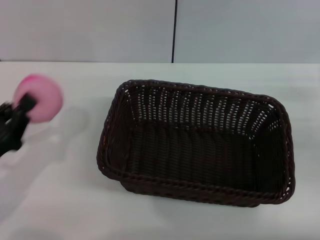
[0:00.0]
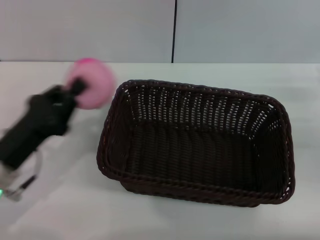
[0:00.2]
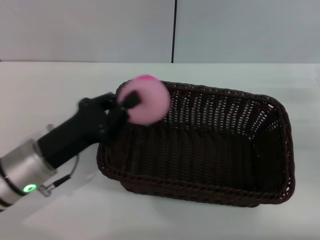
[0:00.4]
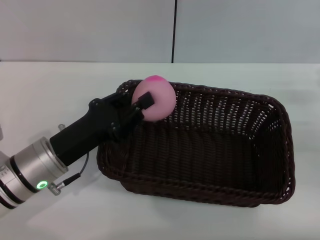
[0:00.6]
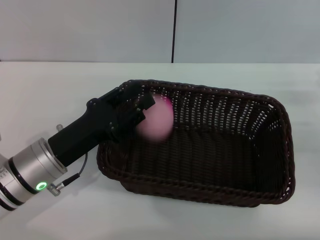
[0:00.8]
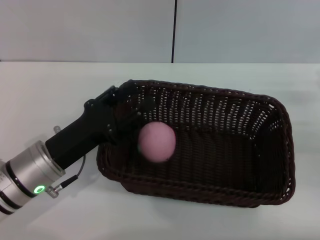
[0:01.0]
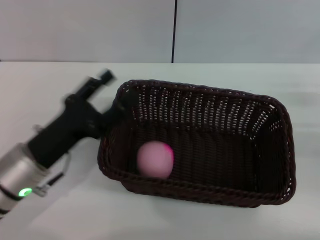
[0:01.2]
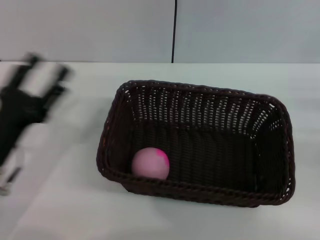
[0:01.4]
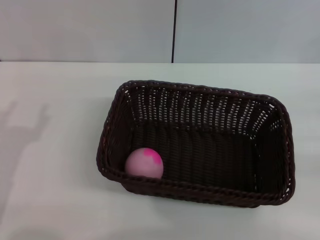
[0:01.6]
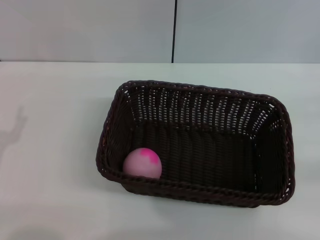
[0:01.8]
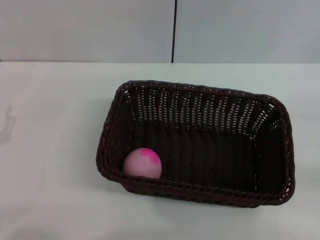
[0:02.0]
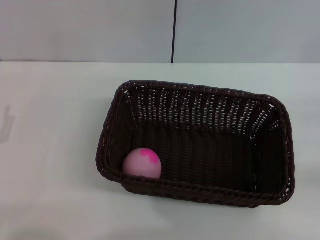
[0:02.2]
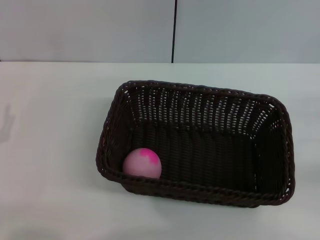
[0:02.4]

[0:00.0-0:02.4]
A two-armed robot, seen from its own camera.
Step, 0:00.0 to 0:01.0: Place the peach into the basket with the left gripper.
0:00.0 to 0:01.2: The left gripper heads to the right, covering roughly 10 cm, and opens.
0:01.2 to 0:02.4: The left gripper shifts about 10 cm to the left. Meanwhile the right gripper changes place by about 5 cm.
